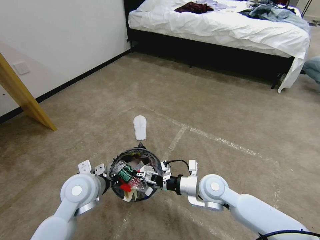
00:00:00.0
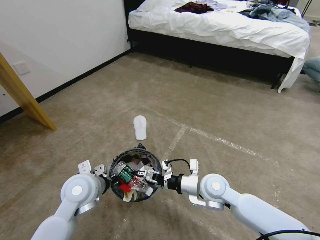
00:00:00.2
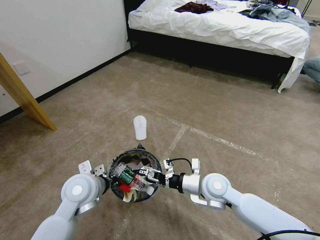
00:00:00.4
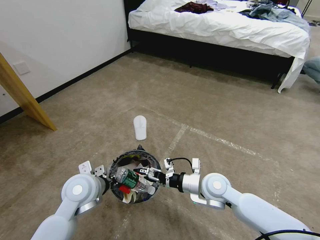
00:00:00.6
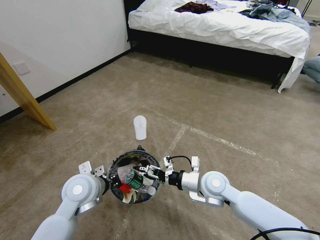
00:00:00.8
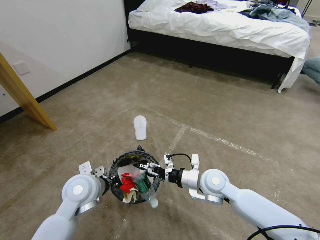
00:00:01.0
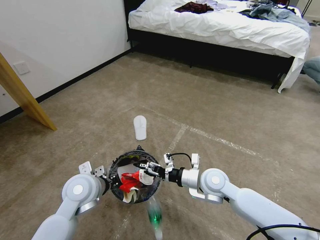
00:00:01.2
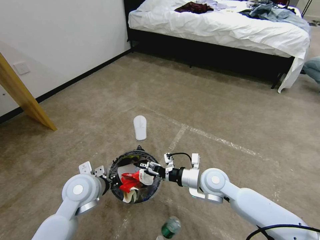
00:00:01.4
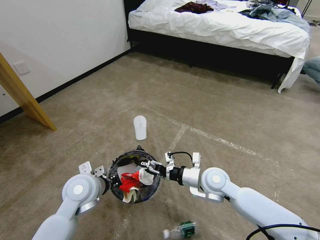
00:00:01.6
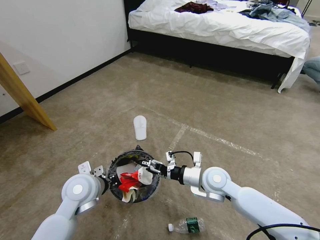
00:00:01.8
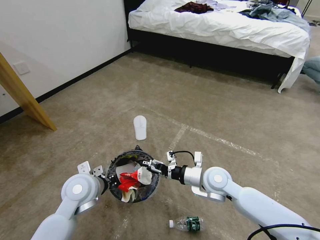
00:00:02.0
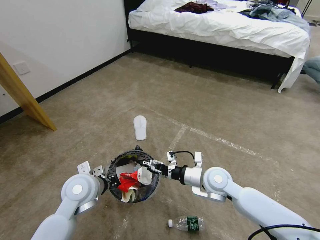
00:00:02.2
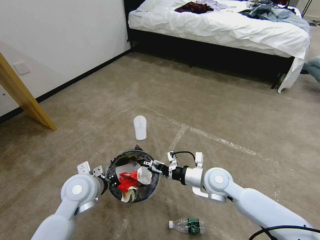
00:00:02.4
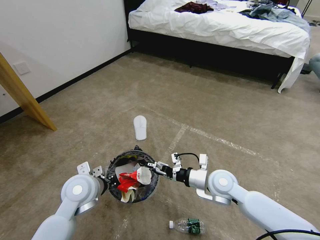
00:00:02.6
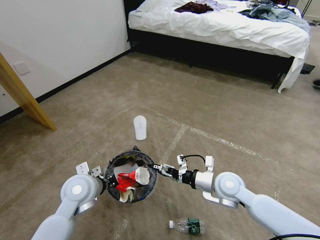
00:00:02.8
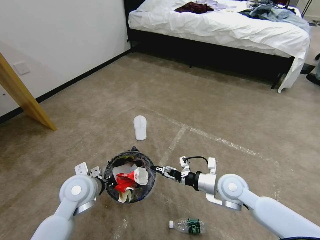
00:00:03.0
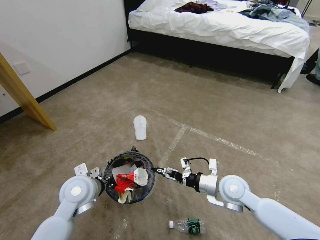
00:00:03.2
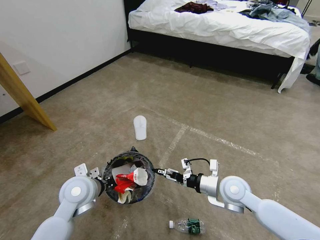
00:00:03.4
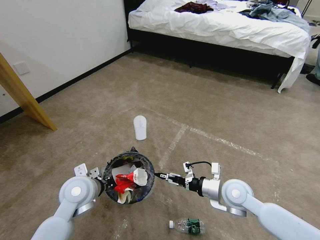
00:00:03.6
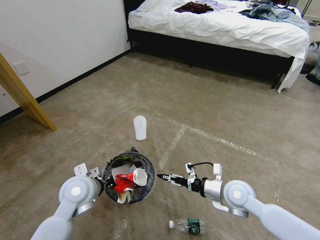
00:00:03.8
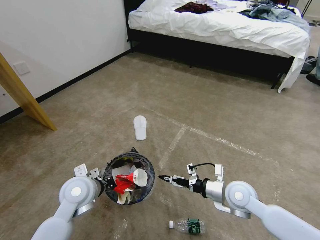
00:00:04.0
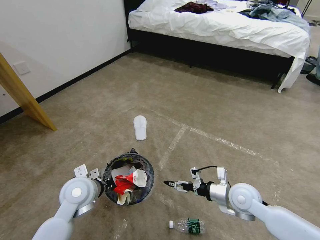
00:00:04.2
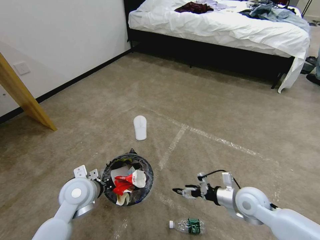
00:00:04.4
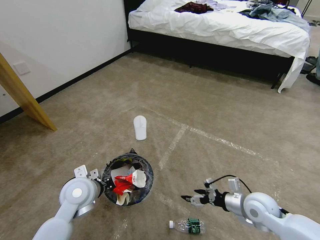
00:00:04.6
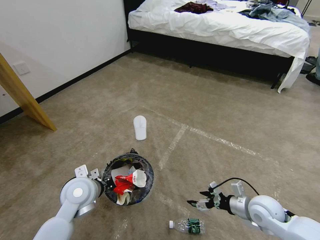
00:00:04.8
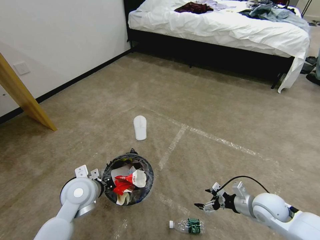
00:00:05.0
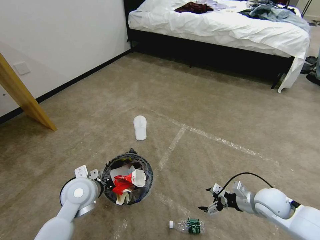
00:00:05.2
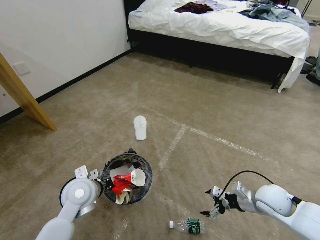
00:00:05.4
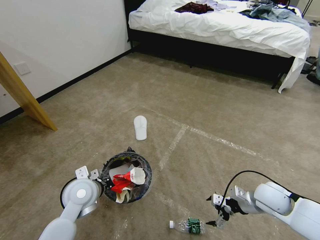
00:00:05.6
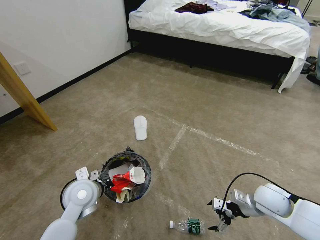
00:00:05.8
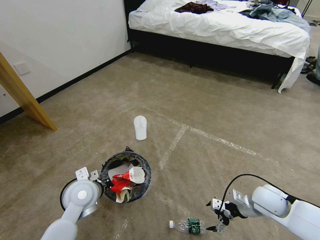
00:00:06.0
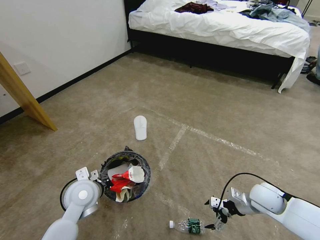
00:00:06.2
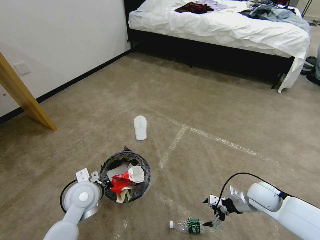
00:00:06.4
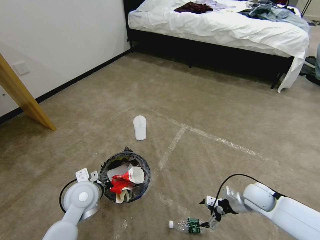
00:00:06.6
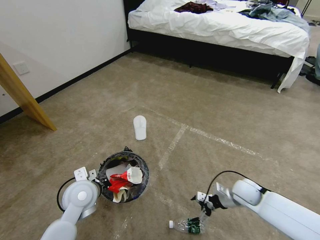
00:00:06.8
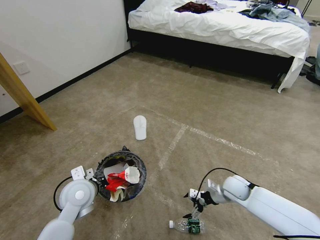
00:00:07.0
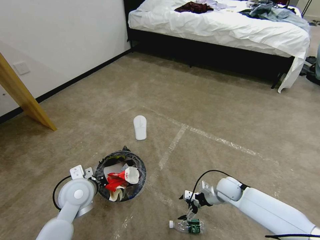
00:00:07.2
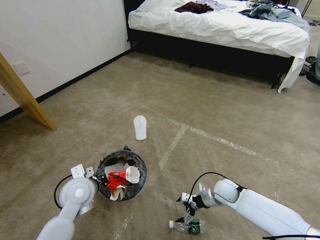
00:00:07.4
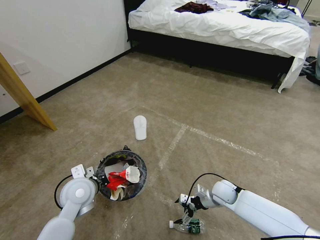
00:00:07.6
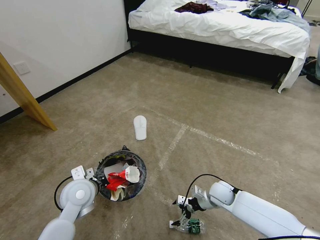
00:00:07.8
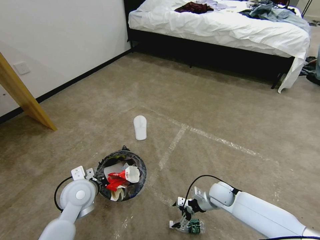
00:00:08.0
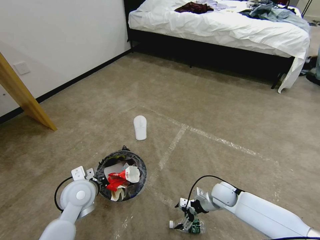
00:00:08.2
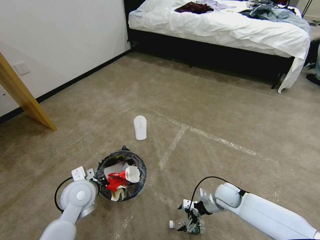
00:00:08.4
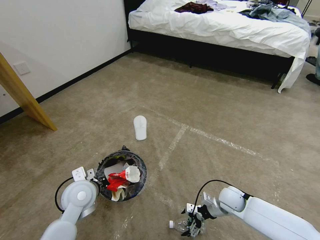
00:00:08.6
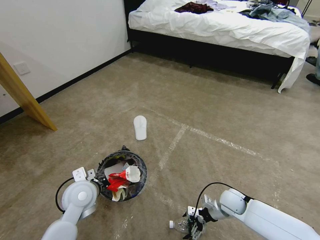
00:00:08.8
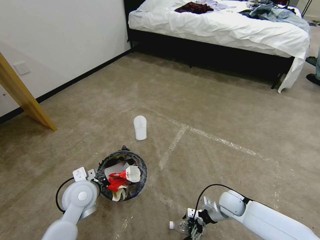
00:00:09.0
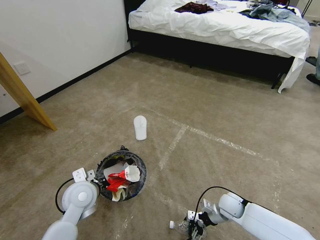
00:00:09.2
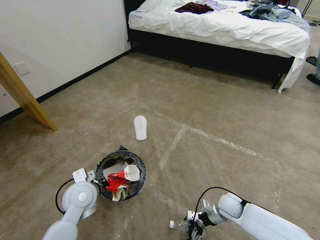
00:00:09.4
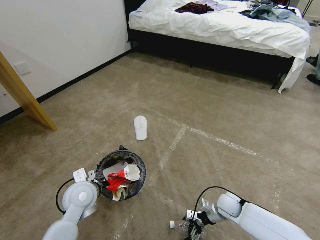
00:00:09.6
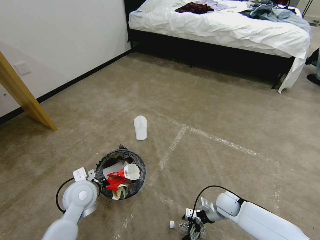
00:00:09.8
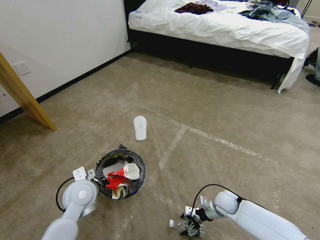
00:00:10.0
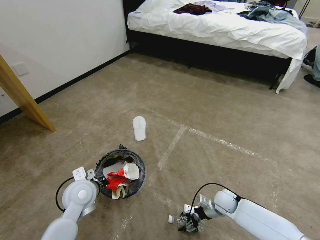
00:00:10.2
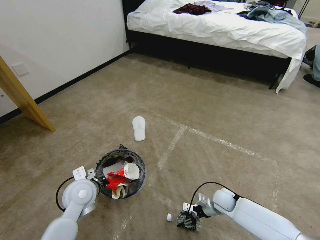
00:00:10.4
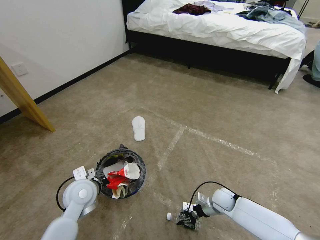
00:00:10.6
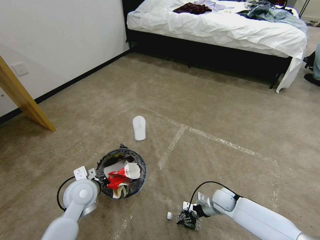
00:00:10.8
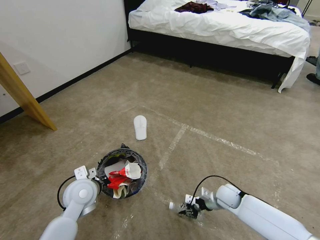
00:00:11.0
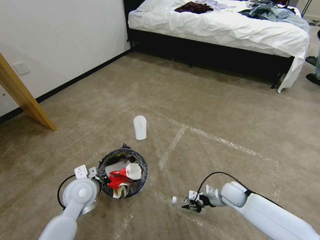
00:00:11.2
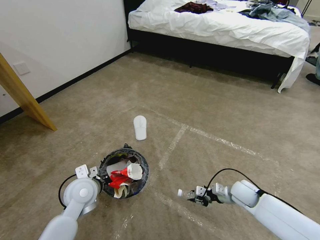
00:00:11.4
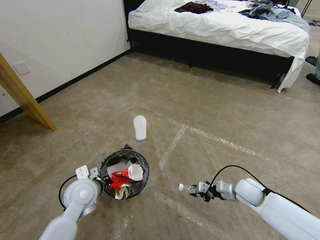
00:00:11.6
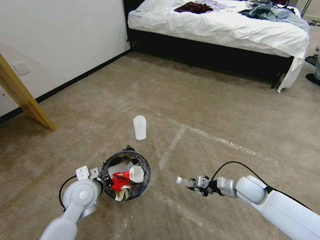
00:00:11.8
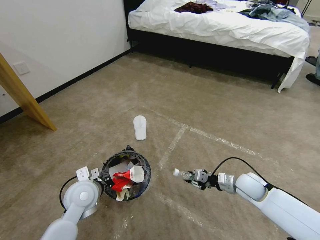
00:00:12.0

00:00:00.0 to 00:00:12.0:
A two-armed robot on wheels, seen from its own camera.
Task of the whole recording: Pick up the trash bin and place the garbage on the floor into it.
00:00:00.0 to 00:00:01.6: There are only small adjustments of the grippers.
00:00:01.6 to 00:00:03.0: The right gripper moves approximately 5 cm.
00:00:03.0 to 00:00:04.4: The right gripper travels to the right by about 5 cm.
00:00:04.4 to 00:00:06.0: The right gripper moves to the right, approximately 5 cm.
00:00:06.0 to 00:00:07.6: The right gripper moves downward, to the left and forward, about 15 cm.
00:00:07.6 to 00:00:09.0: The grippers move only a little.
00:00:09.0 to 00:00:10.4: The right gripper closes.
00:00:10.4 to 00:00:12.0: The right gripper is displaced upward and to the right by approximately 15 cm.

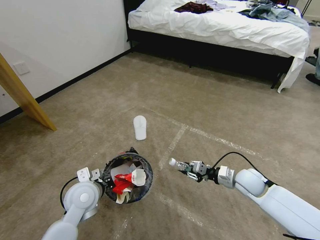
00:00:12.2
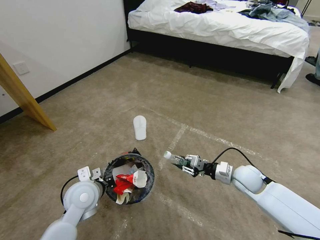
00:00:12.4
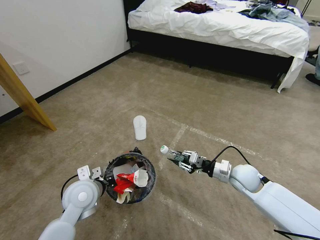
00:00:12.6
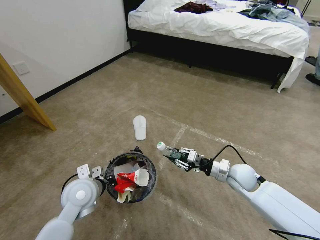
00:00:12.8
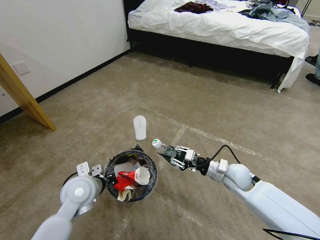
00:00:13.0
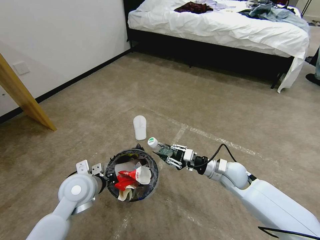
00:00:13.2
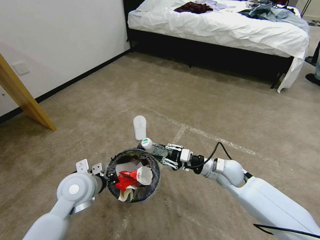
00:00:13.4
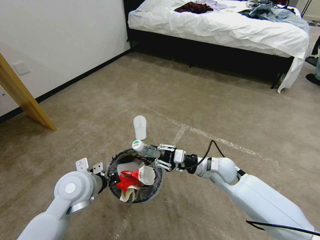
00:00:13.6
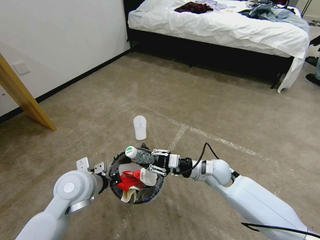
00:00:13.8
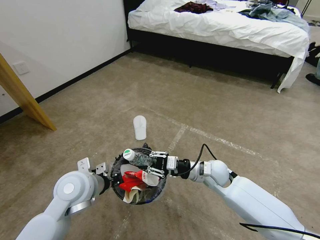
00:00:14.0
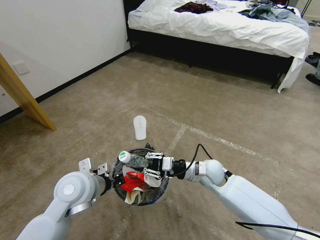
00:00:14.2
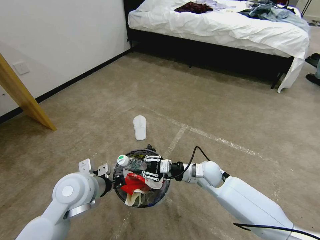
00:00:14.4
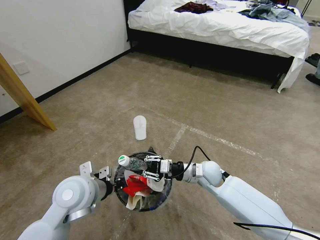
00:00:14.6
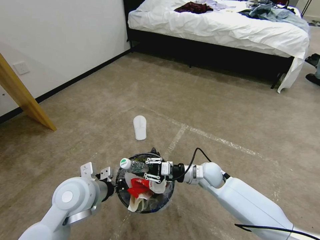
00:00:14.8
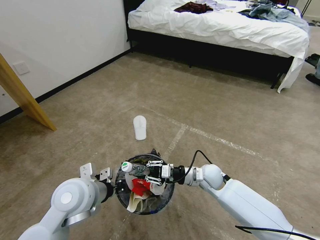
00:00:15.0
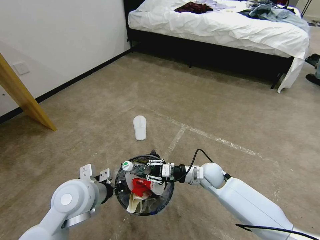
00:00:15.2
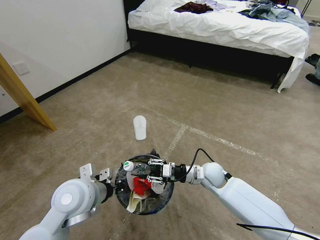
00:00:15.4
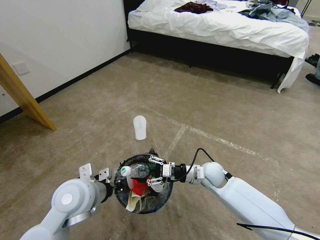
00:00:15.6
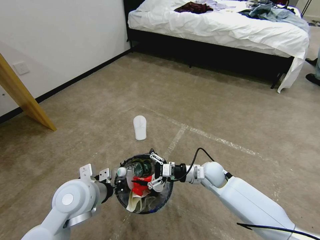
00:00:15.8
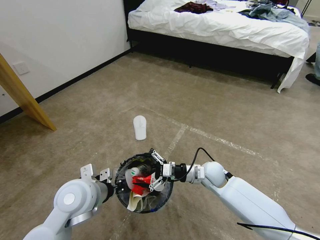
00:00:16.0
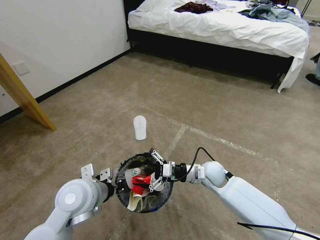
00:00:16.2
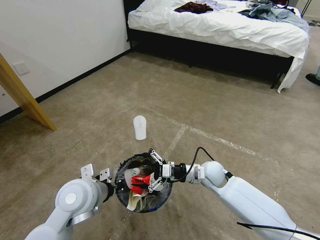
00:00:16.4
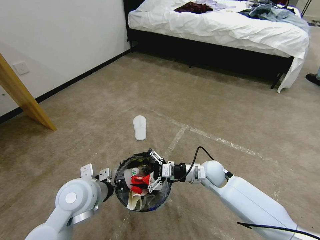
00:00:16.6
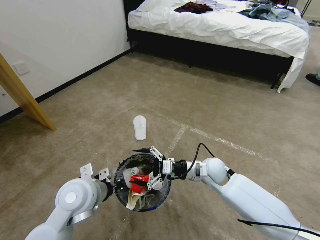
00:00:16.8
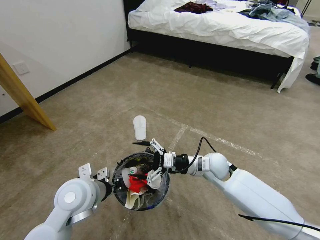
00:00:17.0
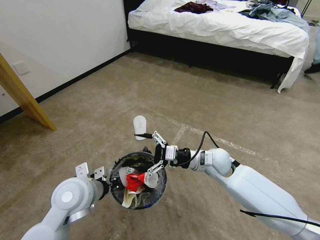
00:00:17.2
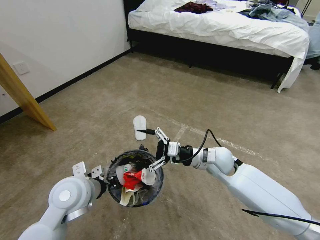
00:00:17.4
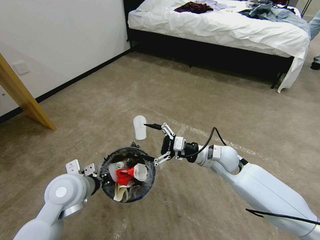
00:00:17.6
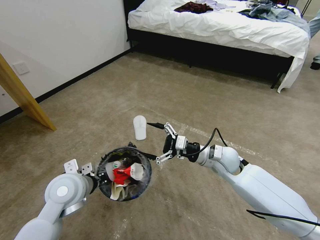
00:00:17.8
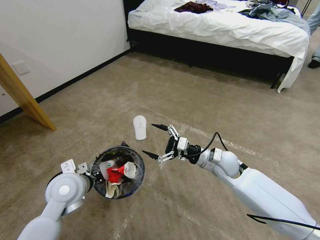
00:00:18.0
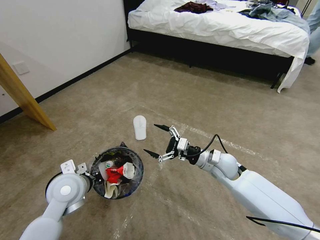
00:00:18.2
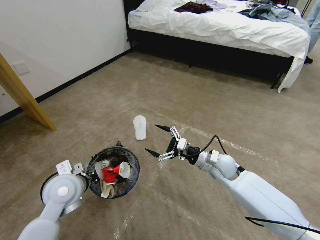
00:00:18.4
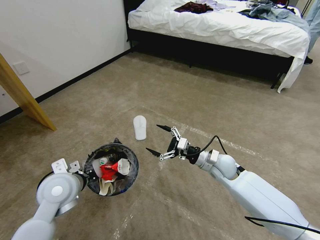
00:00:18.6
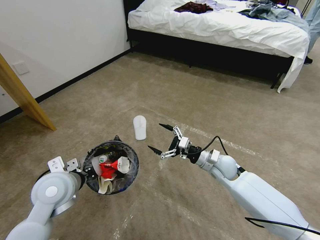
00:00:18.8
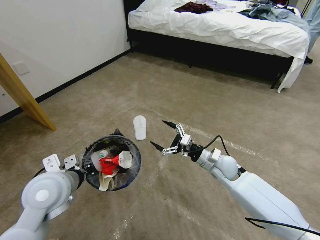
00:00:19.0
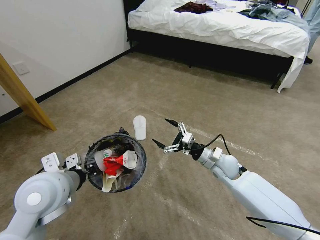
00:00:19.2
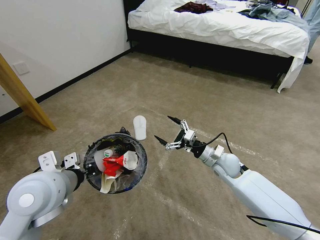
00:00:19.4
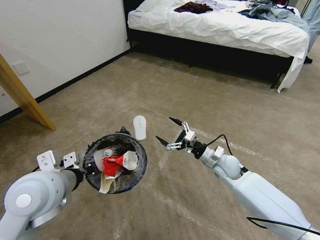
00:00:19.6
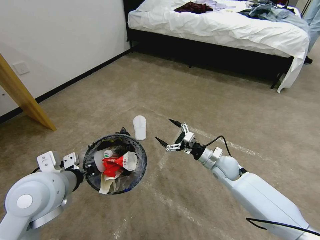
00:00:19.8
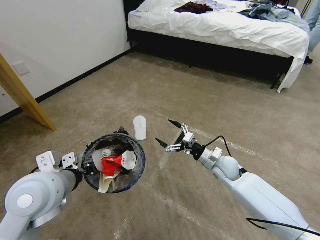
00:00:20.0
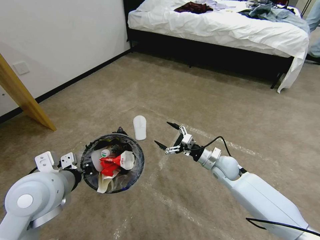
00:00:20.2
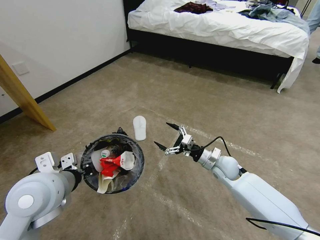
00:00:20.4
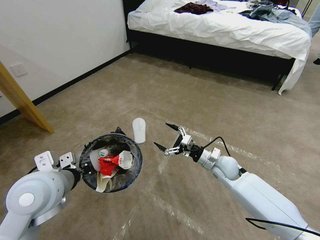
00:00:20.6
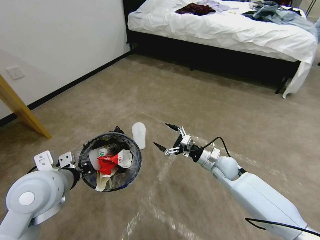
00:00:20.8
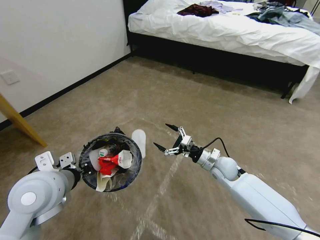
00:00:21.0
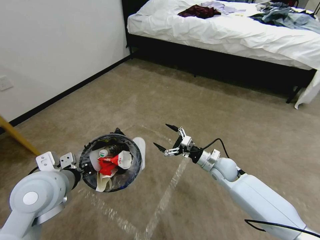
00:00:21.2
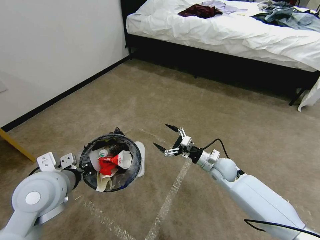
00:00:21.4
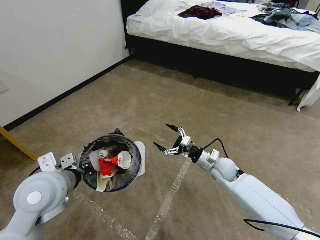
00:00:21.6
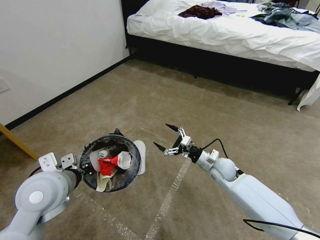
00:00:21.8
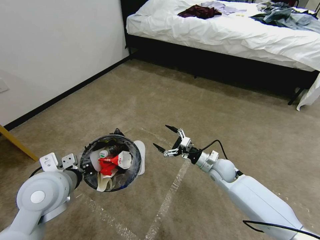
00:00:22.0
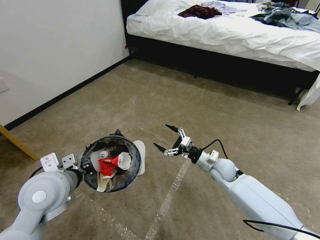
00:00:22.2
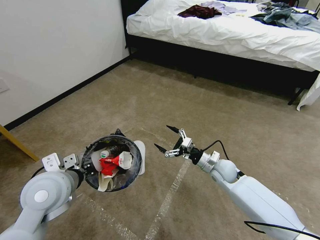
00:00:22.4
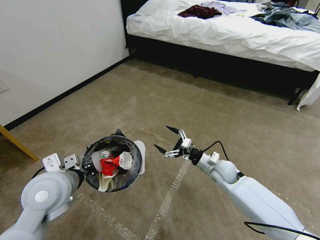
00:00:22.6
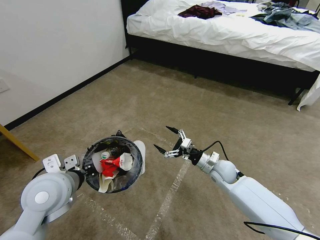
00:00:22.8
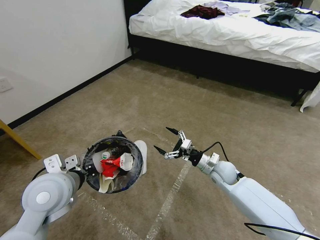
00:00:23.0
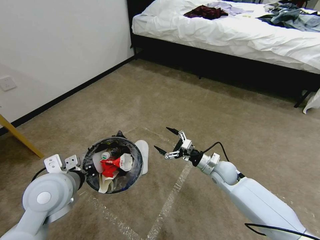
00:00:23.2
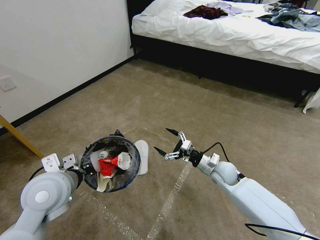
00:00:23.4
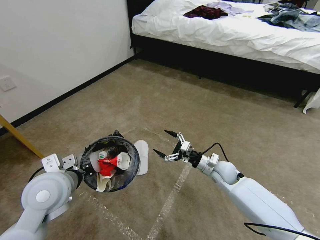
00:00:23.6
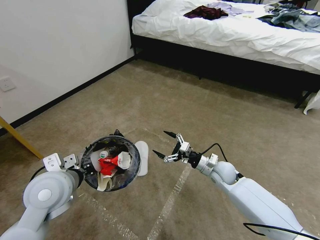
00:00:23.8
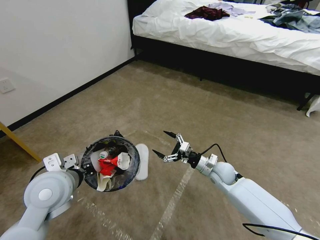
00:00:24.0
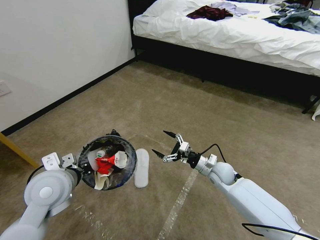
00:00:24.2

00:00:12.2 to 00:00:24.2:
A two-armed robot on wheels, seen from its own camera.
Task of the whole recording: Pick up the trash bin and place the garbage on the floor into it.
00:00:12.2 to 00:00:13.8: The right gripper heads to the left, covering approximately 15 cm. Meanwhile the left gripper travels upward by about 5 cm.
00:00:13.8 to 00:00:15.2: There are only small adjustments of the grippers.
00:00:15.2 to 00:00:16.6: The right gripper opens its fingers.
00:00:16.6 to 00:00:18.2: The left gripper shifts by approximately 5 cm.
00:00:18.2 to 00:00:19.8: The left gripper heads upward, covering approximately 10 cm.
00:00:21.2 to 00:00:24.2: There are only small adjustments of the grippers.
